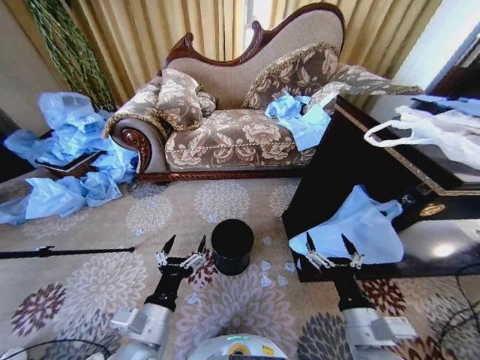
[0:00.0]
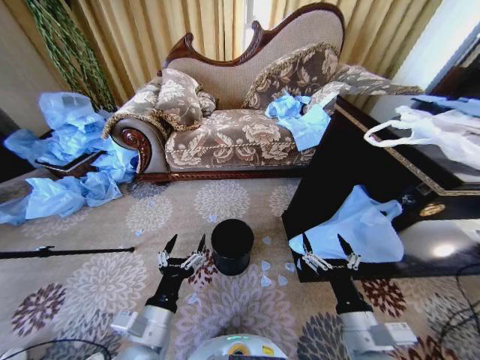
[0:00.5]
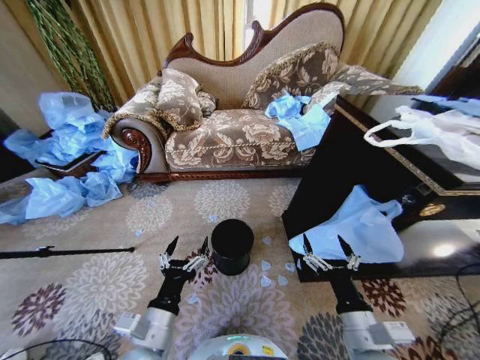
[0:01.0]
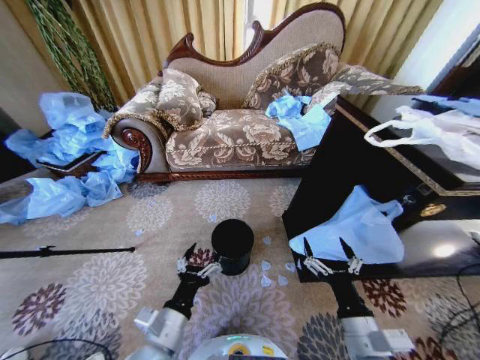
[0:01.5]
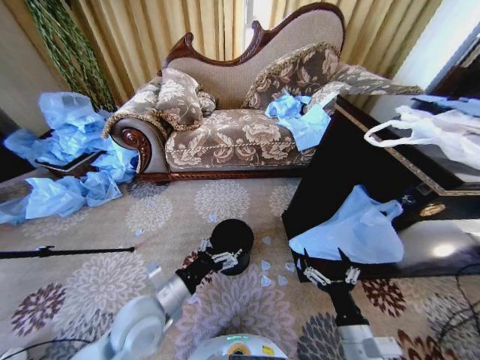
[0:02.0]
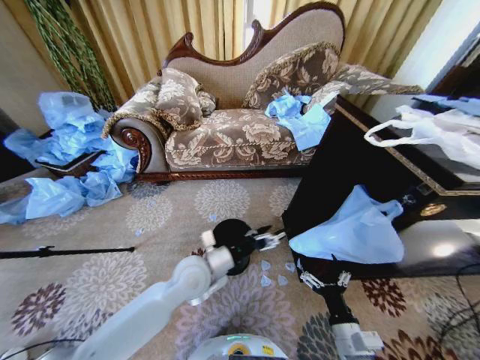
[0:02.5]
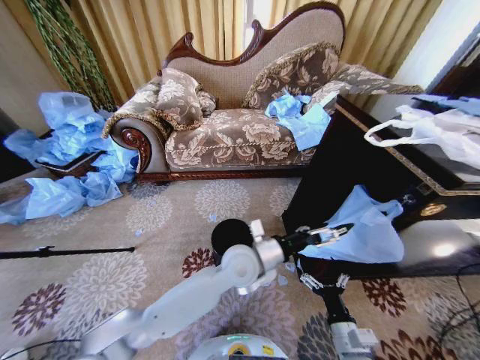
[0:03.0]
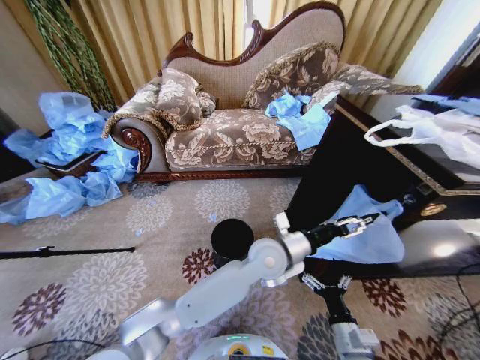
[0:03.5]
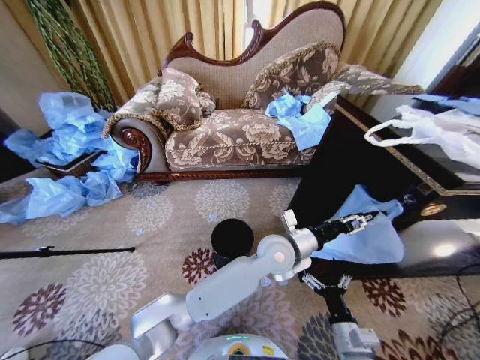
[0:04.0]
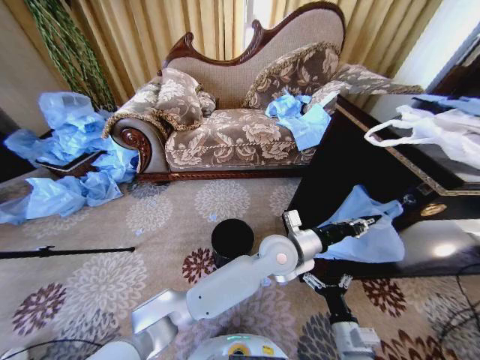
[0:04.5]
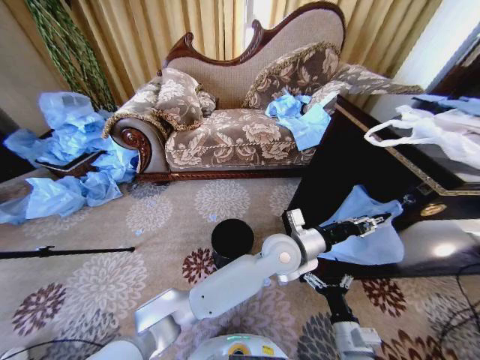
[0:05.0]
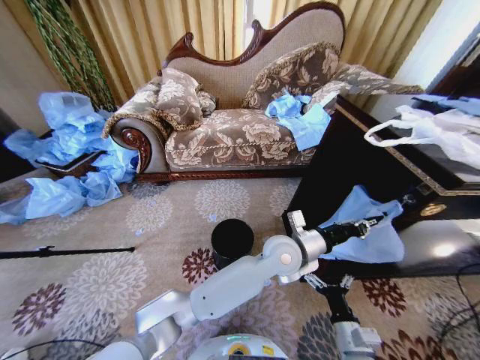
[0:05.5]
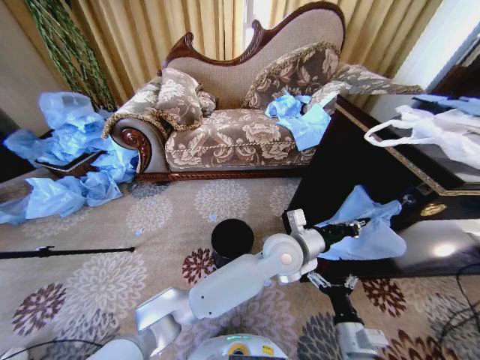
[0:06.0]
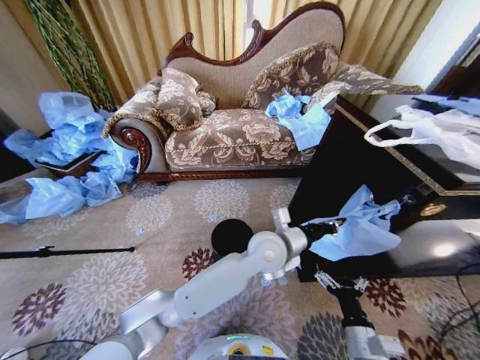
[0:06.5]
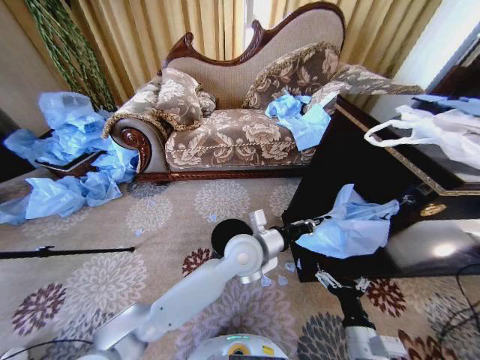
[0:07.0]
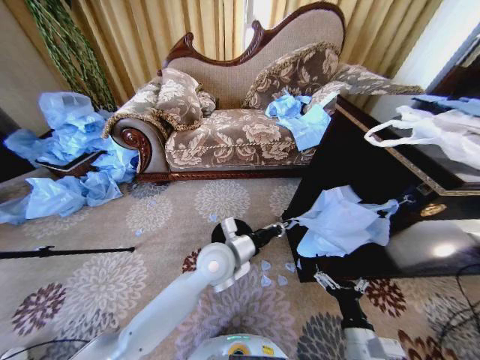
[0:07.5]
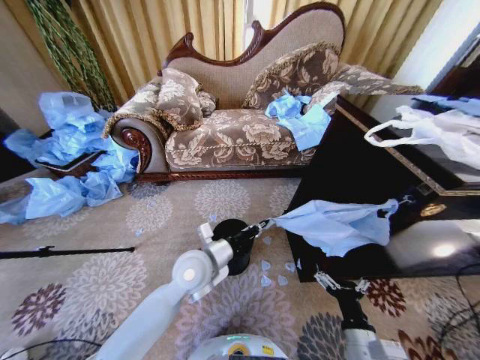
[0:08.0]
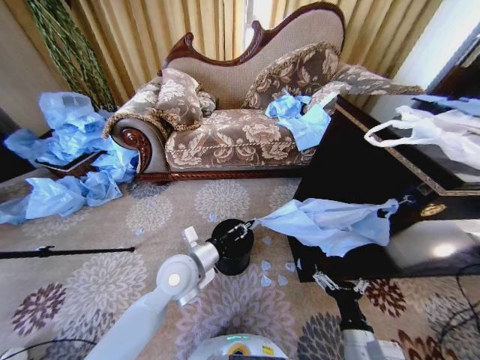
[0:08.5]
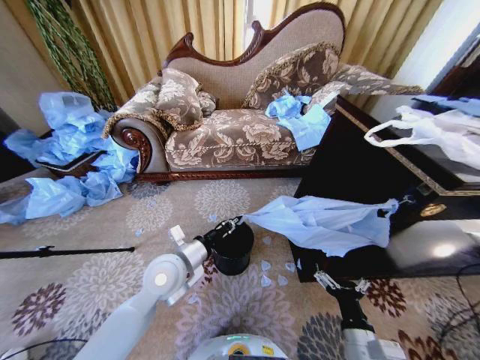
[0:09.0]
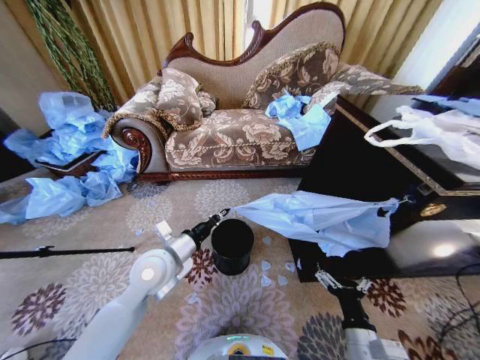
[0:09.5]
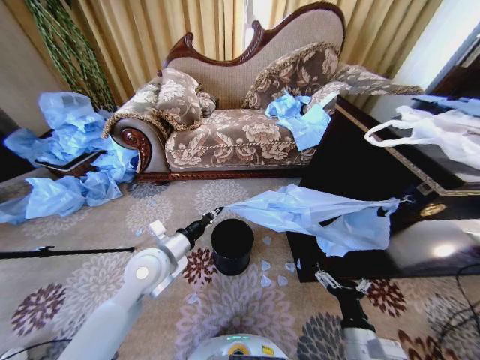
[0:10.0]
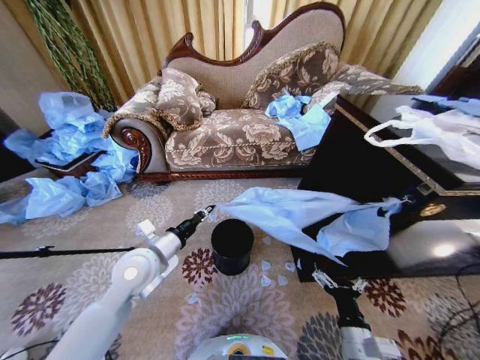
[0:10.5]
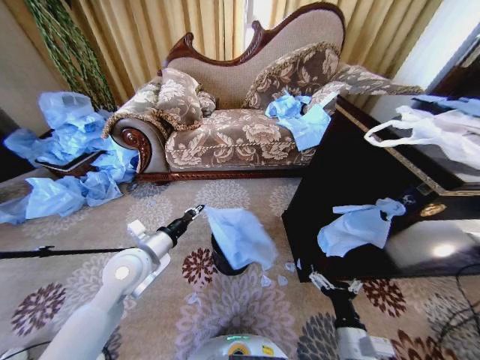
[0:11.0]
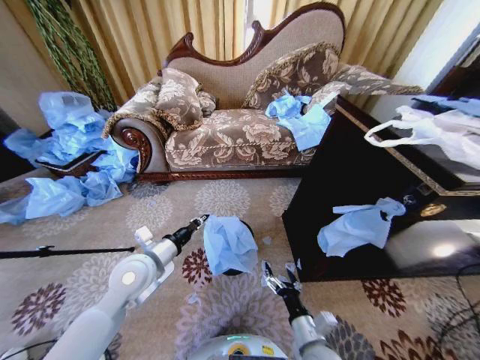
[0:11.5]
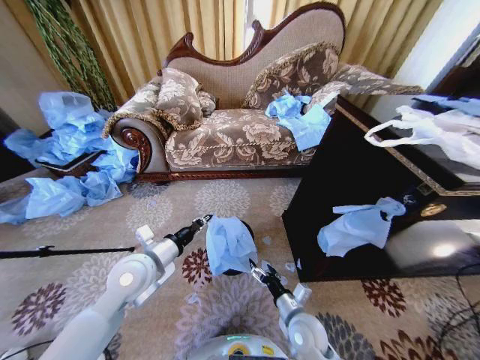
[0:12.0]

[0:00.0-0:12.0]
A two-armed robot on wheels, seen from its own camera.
Task of the whole recording: Place a garbage bag over the trash bin.
0:02.0 to 0:04.0: The left gripper travels to the right and forward by roughly 35 cm, and closes up, while the right gripper heads downward, covering approximately 5 cm.
0:04.0 to 0:06.0: The left gripper closes its fingers.
0:06.0 to 0:08.0: The left gripper travels to the left by some 20 cm.
0:08.0 to 0:10.0: The left gripper goes some 10 cm to the left.
0:10.0 to 0:12.0: The right gripper heads forward, to the left and downward, covering about 15 cm.

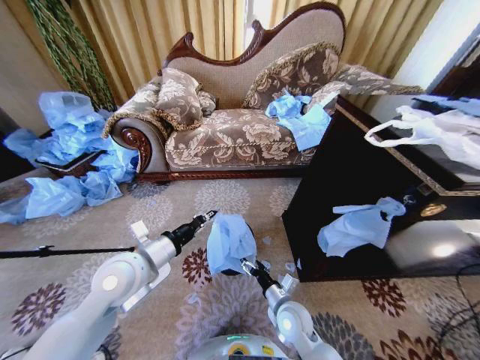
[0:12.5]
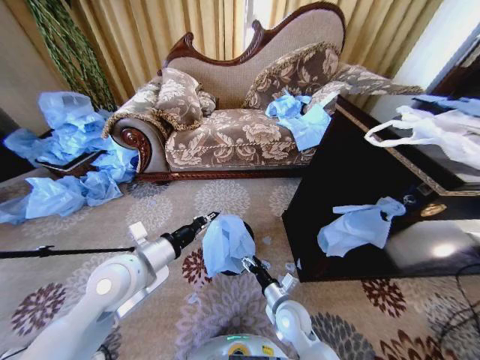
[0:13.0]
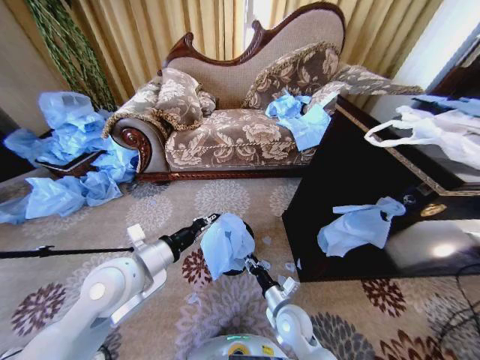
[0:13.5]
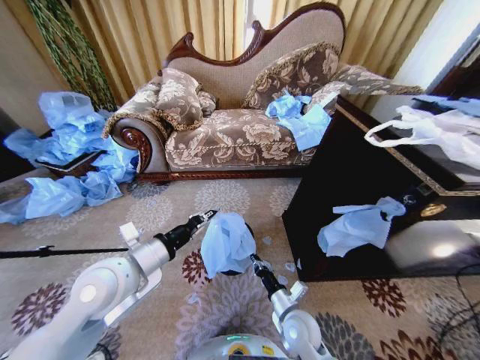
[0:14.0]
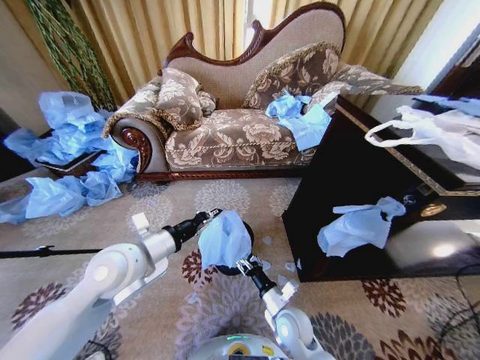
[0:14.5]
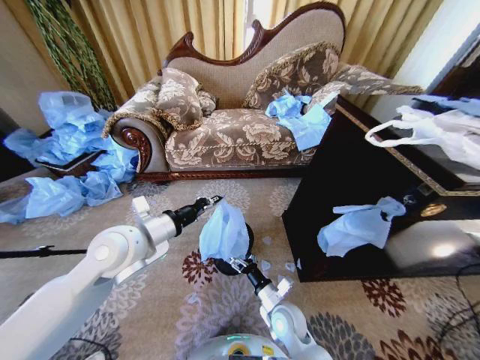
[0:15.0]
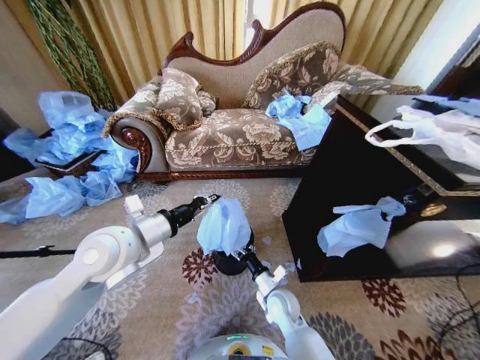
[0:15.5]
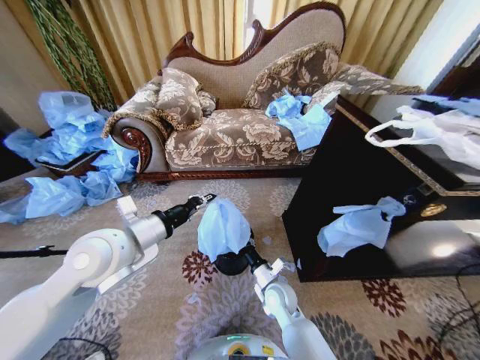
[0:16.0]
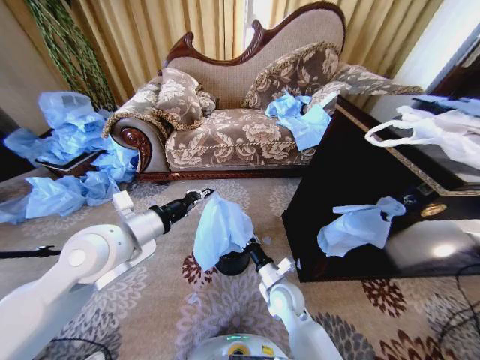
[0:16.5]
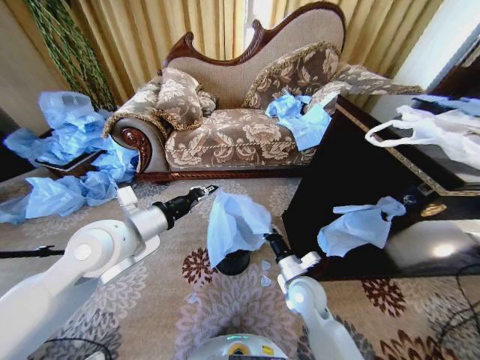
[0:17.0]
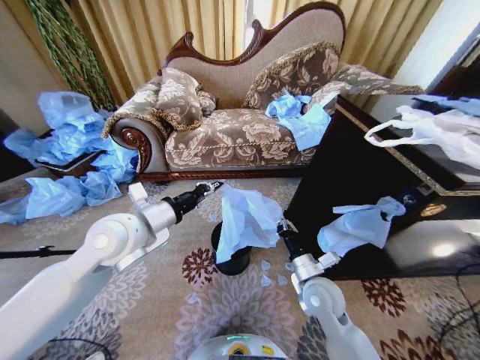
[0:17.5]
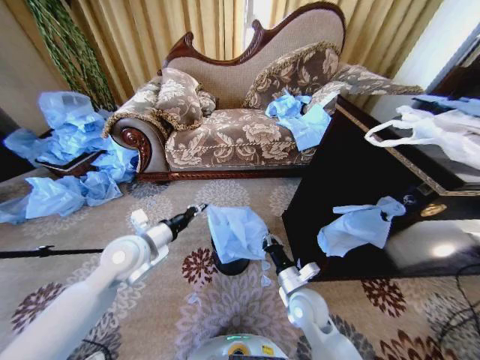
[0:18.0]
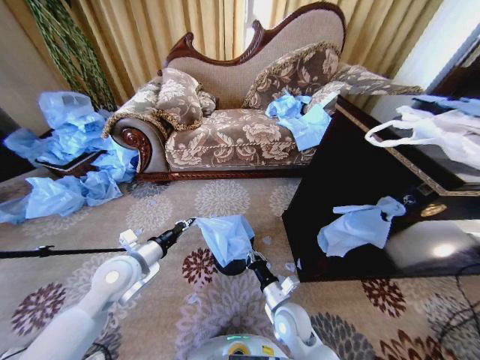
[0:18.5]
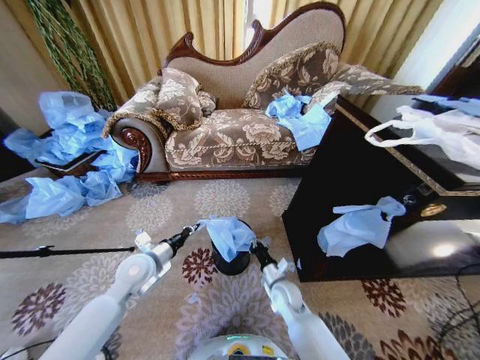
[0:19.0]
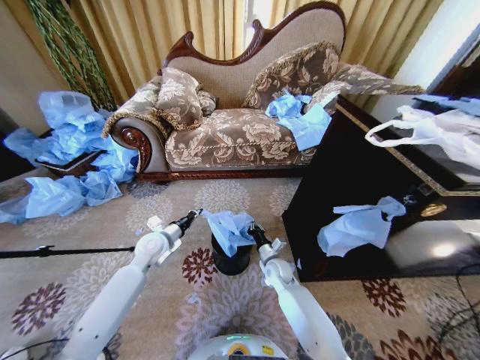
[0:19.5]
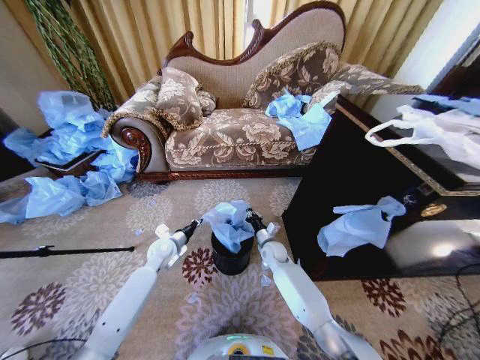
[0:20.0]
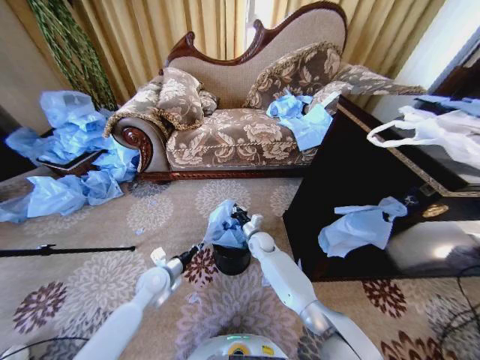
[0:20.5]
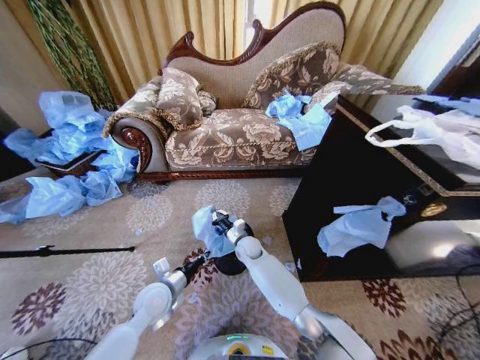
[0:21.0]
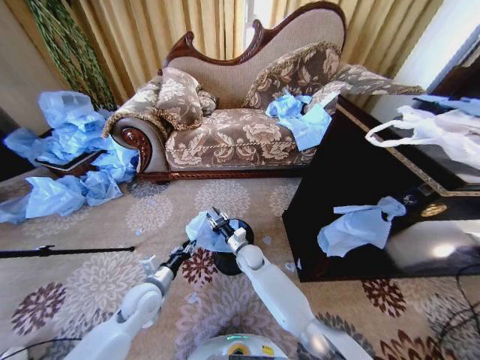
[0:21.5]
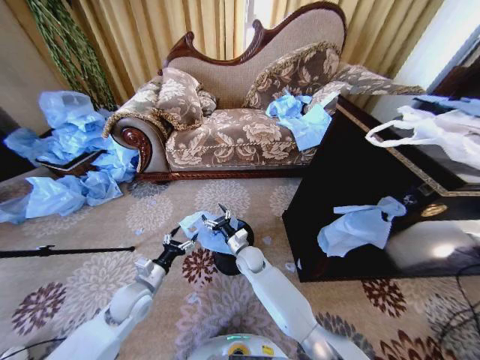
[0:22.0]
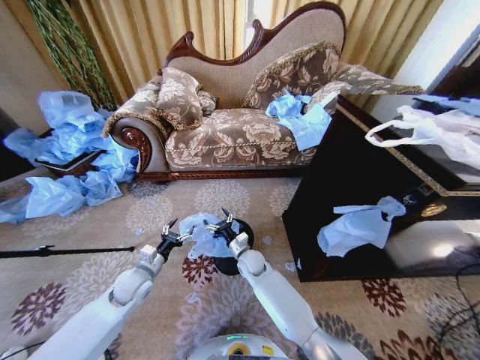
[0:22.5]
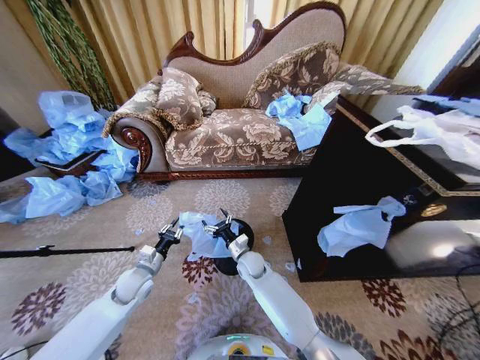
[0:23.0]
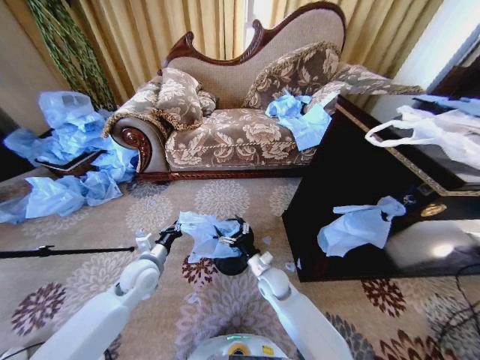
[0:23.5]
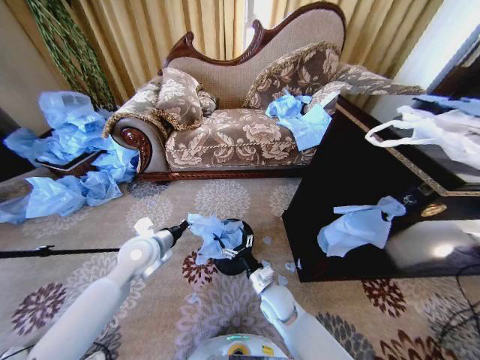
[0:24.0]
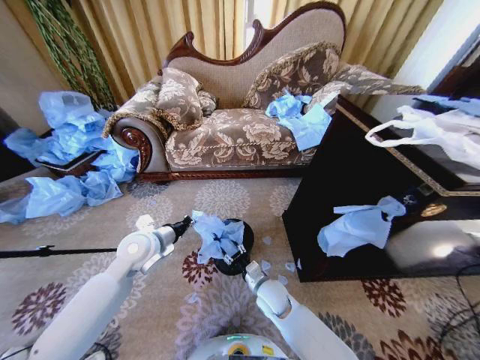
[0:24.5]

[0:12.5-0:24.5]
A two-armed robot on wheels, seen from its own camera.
Task of the whole recording: Place a garbage bag over the trash bin.
0:12.5 to 0:14.5: The right gripper closes.
0:14.5 to 0:16.5: The left gripper shifts roughly 5 cm upward; the right gripper shifts about 5 cm forward, and opens and closes again.
0:16.5 to 0:18.5: The right gripper shifts about 5 cm backward, moves some 5 cm upward and comes back, and closes up. The left gripper heads downward, covering approximately 15 cm.
0:18.5 to 0:20.5: The right gripper moves forward, about 25 cm; the left gripper moves downward, some 15 cm.
0:20.5 to 0:22.5: The left gripper moves to the left, some 5 cm, and opens its fingers. The right gripper heads backward, covering roughly 10 cm, and opens up.
0:22.5 to 0:24.5: The right gripper is displaced backward and to the right by roughly 15 cm, and closes up; the left gripper goes some 15 cm upward, and closes.

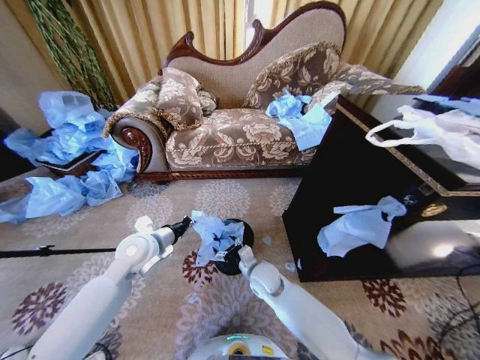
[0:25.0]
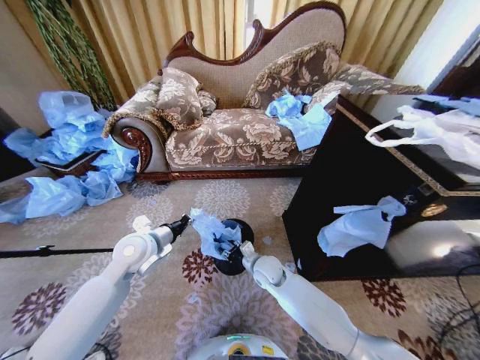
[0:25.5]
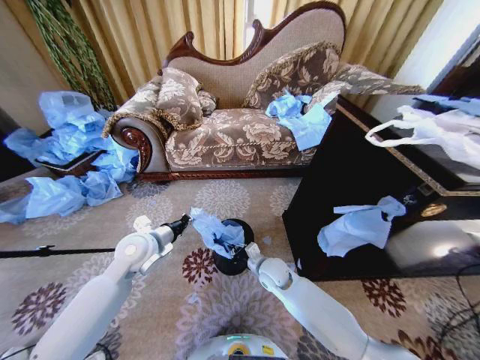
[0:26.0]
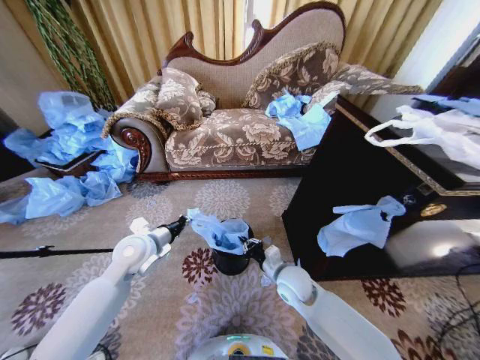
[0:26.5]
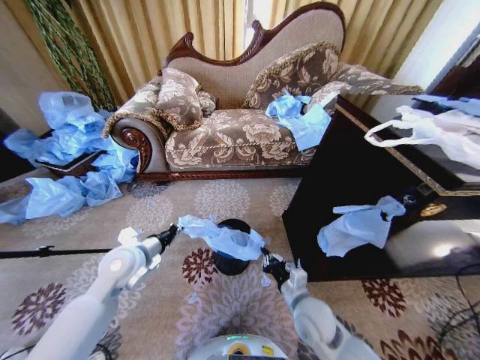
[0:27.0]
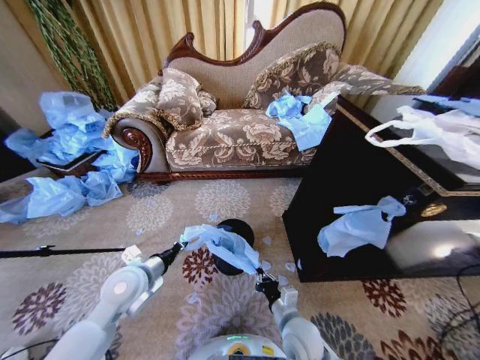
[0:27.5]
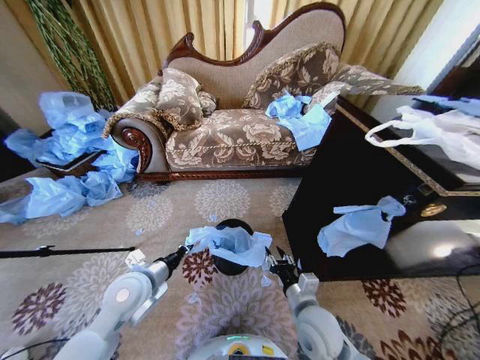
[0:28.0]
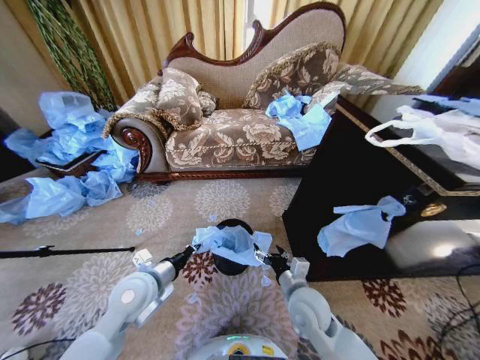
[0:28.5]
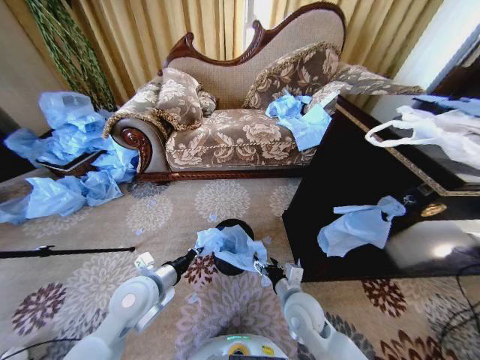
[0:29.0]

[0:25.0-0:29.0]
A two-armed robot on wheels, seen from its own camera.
Task of the whole recording: Place a garbage bag over the trash bin.
0:25.0 to 0:27.0: The right gripper heads to the right and backward, covering about 15 cm, and closes.
0:27.0 to 0:29.0: The right gripper opens its fingers. Meanwhile the left gripper is displaced backward and to the right by about 10 cm.
